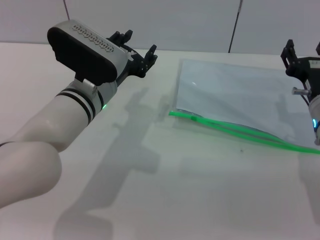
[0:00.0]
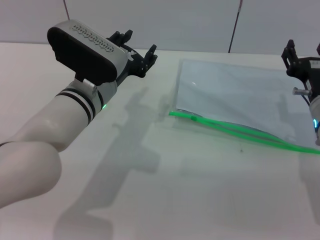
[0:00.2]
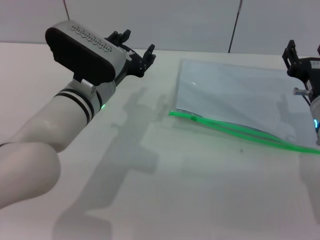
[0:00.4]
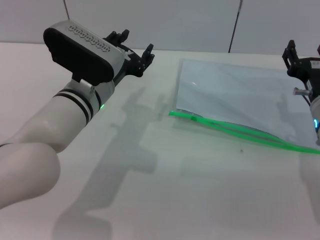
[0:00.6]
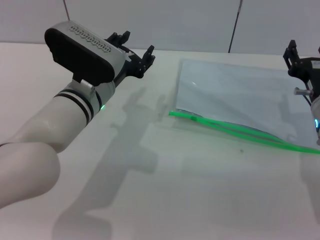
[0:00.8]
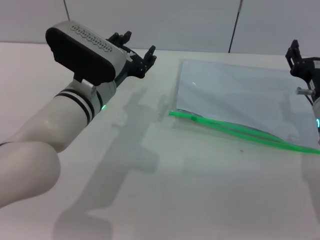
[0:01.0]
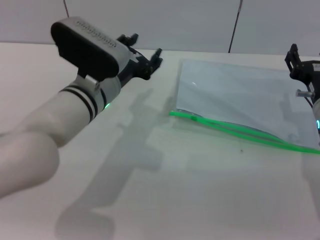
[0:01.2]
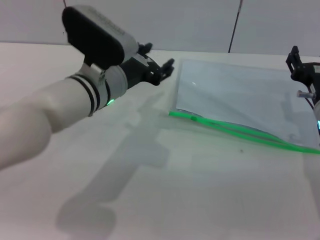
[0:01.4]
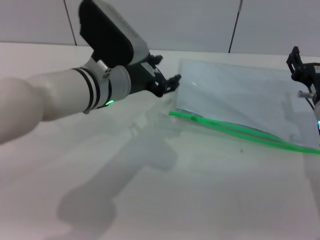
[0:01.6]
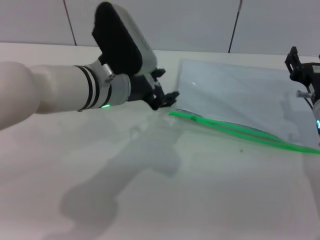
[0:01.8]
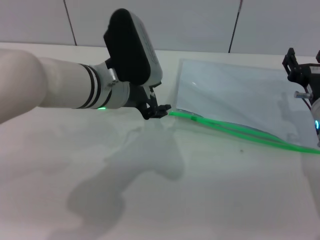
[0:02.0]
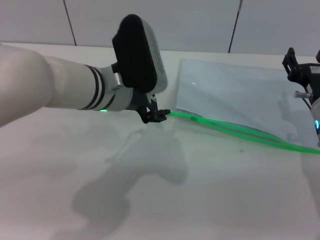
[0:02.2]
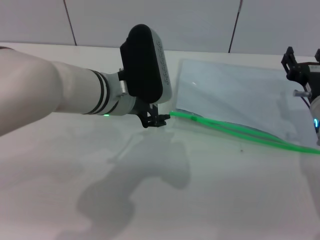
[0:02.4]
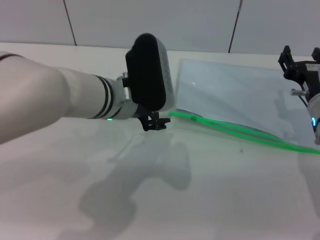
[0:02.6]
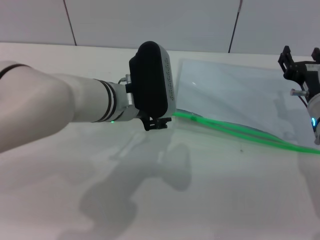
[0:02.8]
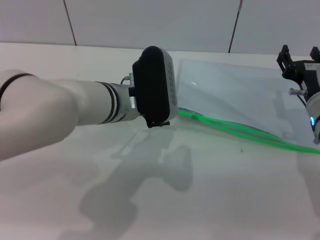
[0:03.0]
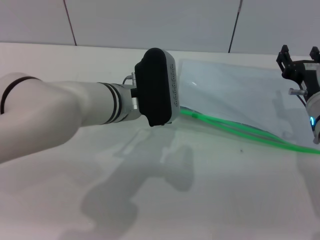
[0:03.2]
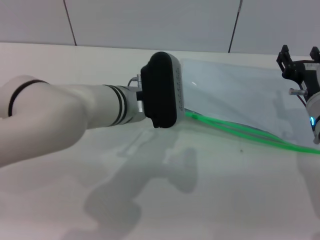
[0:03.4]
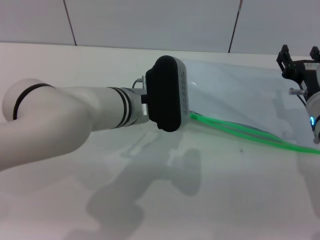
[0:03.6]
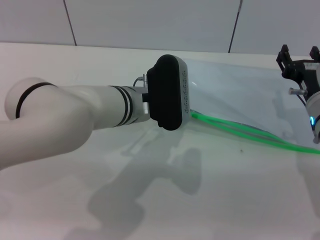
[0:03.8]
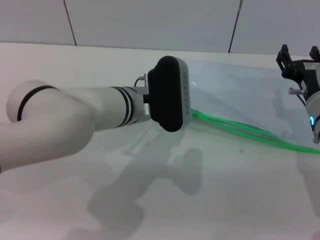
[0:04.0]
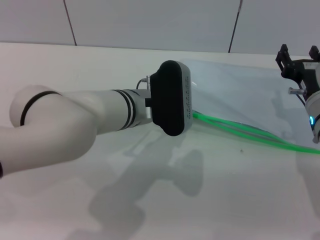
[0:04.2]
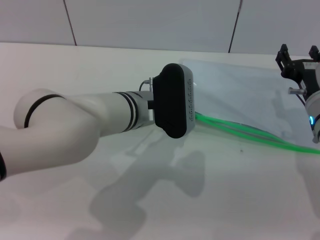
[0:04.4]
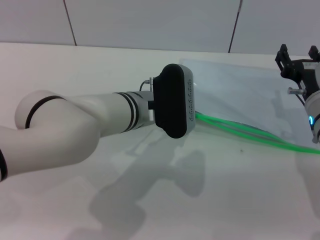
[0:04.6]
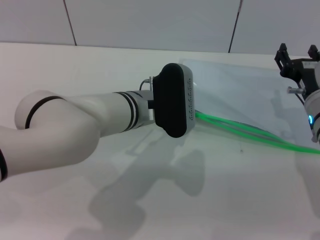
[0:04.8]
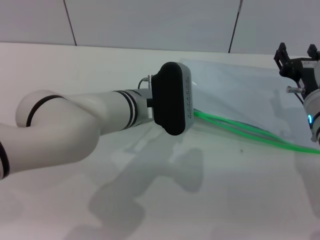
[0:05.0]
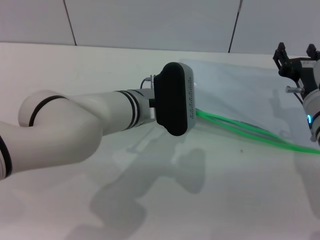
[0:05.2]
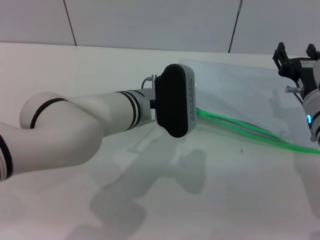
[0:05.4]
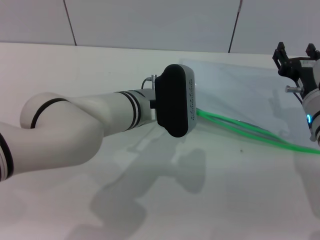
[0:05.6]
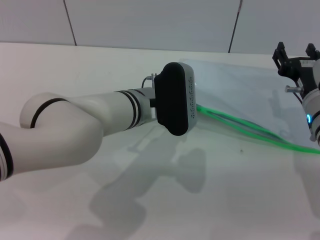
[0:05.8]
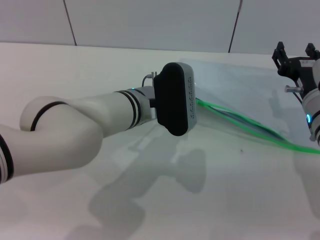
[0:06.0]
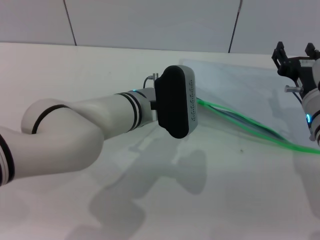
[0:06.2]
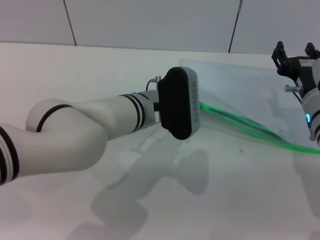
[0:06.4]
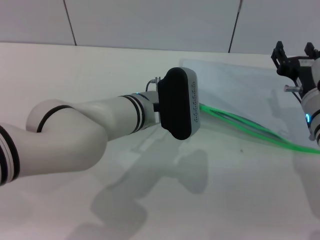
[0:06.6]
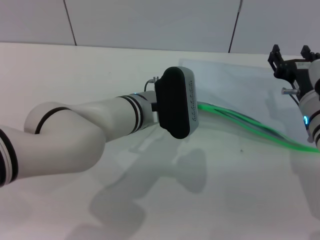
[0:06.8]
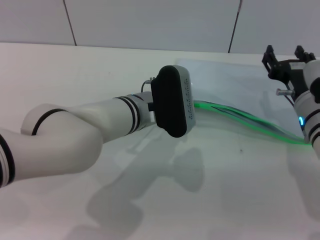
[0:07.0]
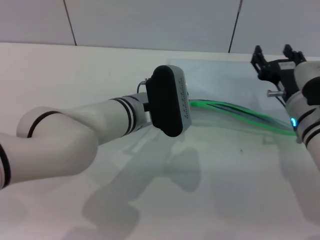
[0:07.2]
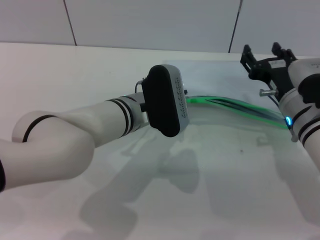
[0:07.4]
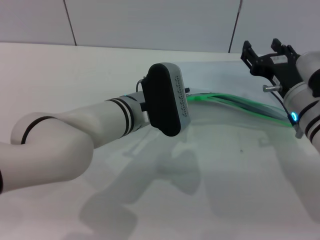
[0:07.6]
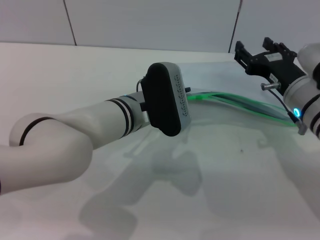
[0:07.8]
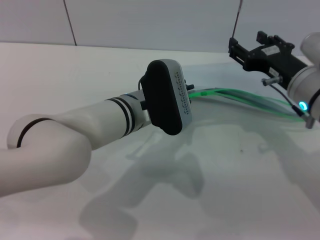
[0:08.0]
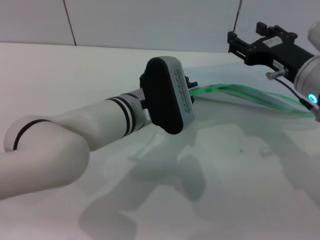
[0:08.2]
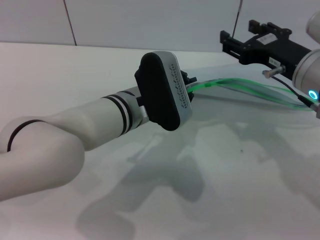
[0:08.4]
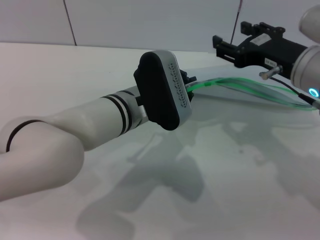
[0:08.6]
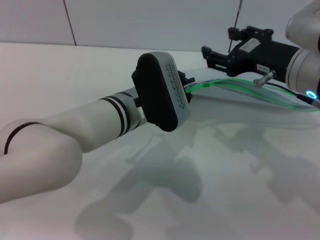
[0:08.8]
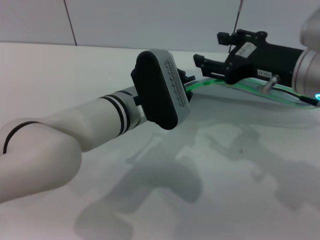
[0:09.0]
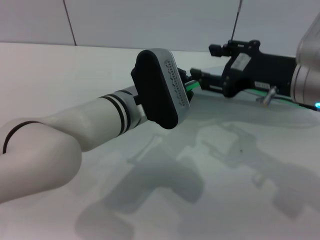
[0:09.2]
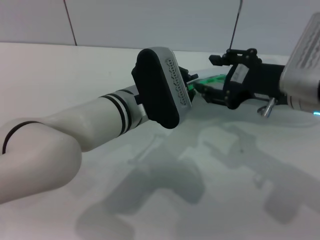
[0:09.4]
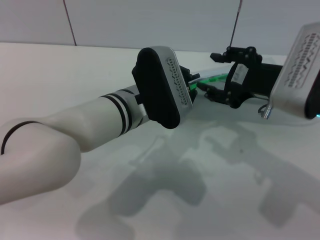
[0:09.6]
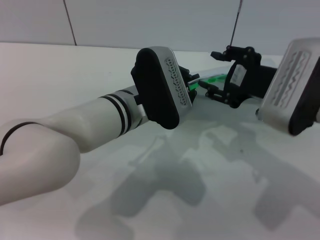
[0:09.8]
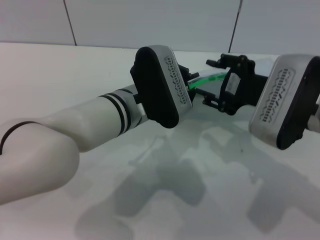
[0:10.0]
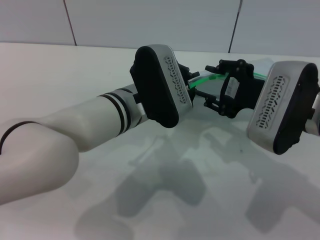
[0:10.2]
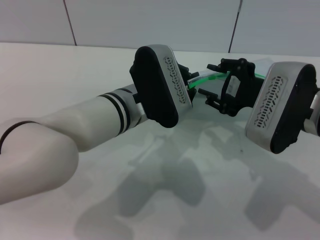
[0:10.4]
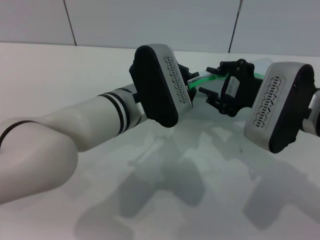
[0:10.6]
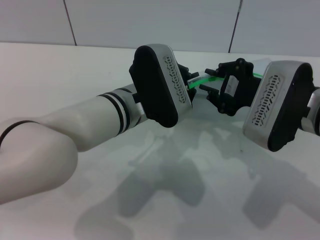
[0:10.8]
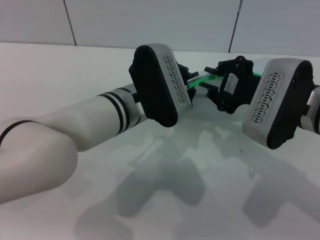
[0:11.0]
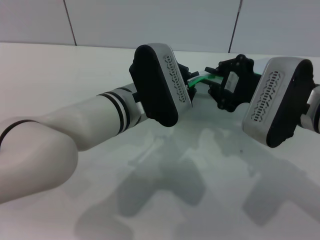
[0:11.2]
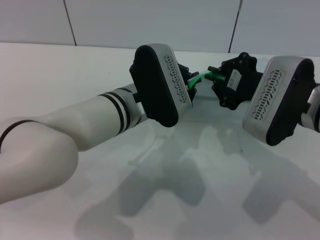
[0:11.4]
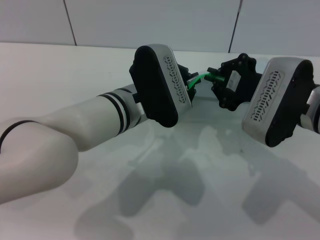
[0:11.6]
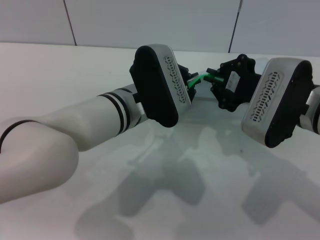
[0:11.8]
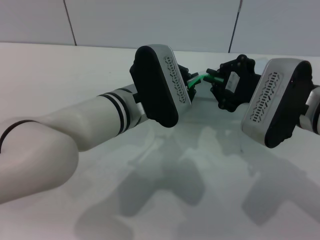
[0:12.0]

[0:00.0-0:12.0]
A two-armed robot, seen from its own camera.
Step, 0:00.0 to 0:07.4: Pick up the transparent plastic bag with the left gripper.
0:03.0 to 0:06.0: The grippers make only small movements.
0:06.0 to 0:07.6: The left gripper closes.
0:07.6 to 0:09.0: The right gripper is displaced upward by some 10 cm.
0:09.0 to 0:10.4: The right gripper goes about 5 cm downward.
0:10.4 to 0:12.0: The right gripper closes its fingers.

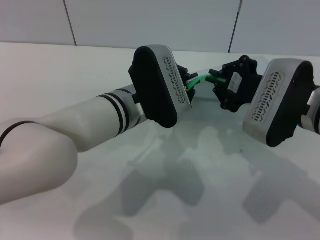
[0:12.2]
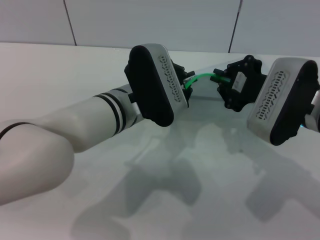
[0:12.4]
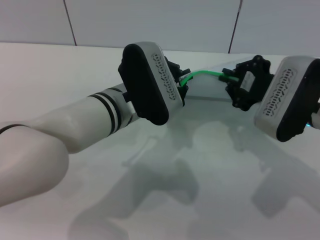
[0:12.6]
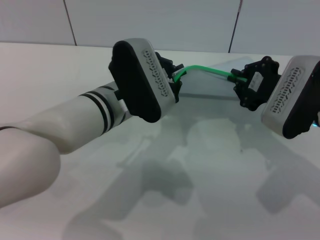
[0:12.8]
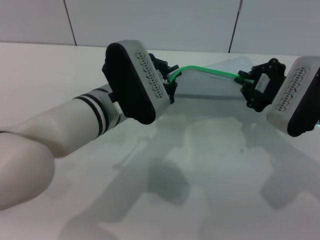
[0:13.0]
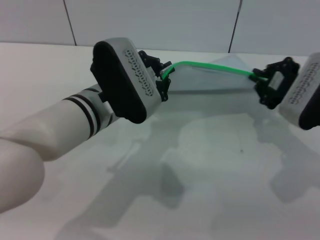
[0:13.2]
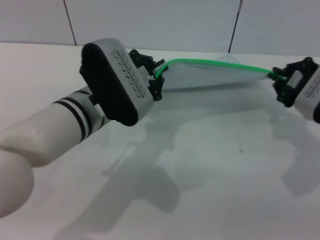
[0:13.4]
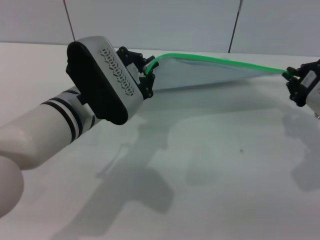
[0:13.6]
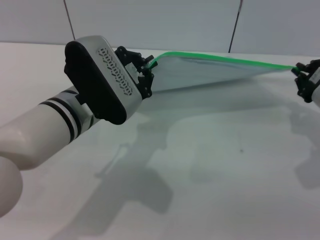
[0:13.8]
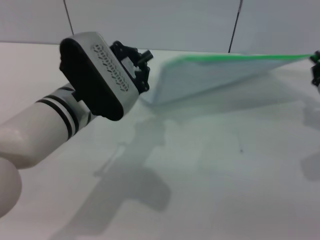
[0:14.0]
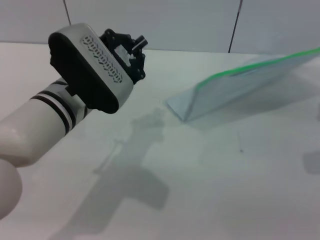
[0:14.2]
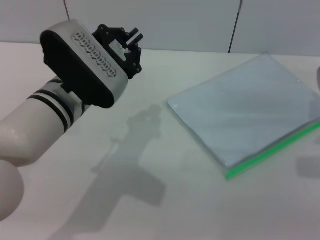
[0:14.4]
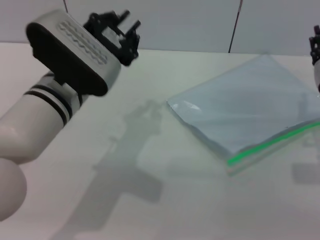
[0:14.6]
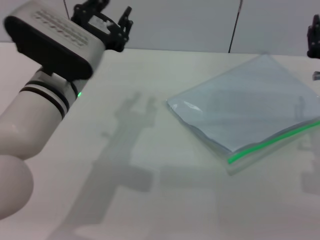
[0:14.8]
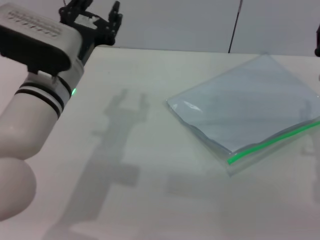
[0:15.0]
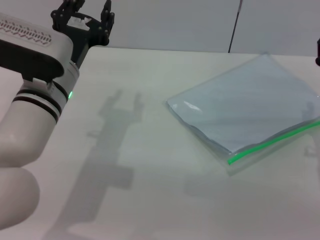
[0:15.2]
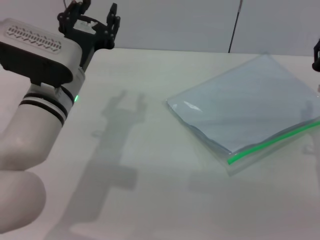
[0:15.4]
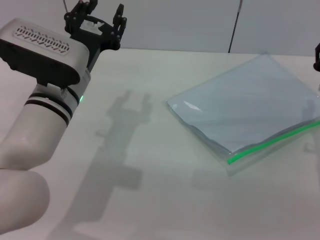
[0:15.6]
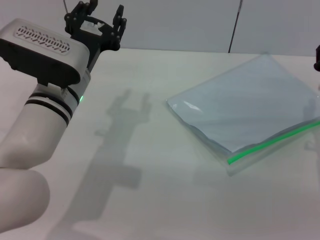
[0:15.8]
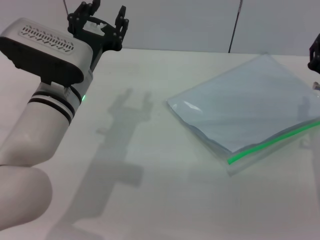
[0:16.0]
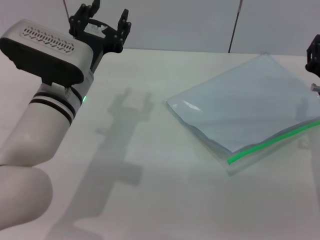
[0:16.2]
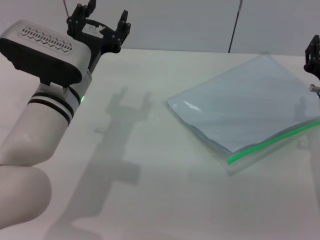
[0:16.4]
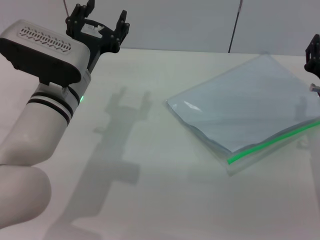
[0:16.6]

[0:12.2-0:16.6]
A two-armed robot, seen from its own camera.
Step, 0:12.2 to 0:14.4: Pulling up the zipper on the transparent plastic bag with the right gripper to close it.
Step, 0:14.6 to 0:15.2: Place the transparent plastic bag.
0:12.2 to 0:13.6: The right gripper goes about 10 cm to the right; the left gripper heads to the left, covering approximately 5 cm.
0:13.6 to 0:15.2: The right gripper moves roughly 5 cm, and opens its fingers. Meanwhile the left gripper opens its fingers.
0:15.2 to 0:16.6: The grippers move only a little.

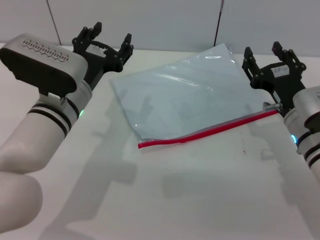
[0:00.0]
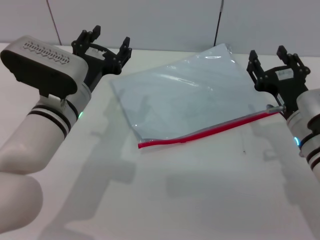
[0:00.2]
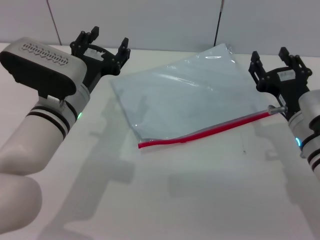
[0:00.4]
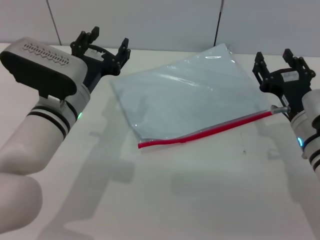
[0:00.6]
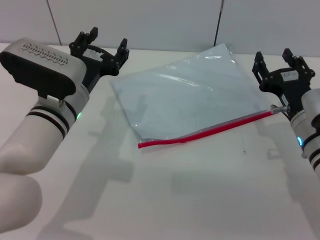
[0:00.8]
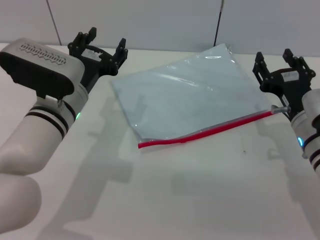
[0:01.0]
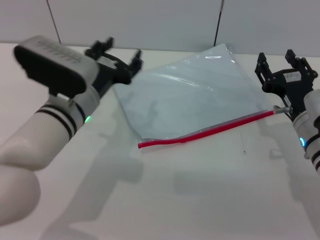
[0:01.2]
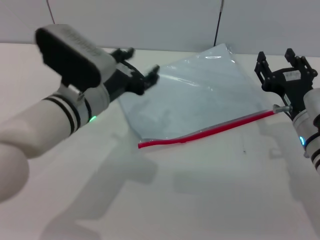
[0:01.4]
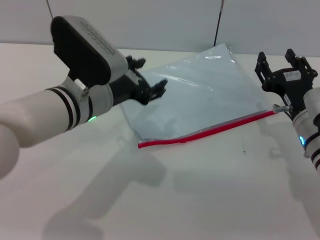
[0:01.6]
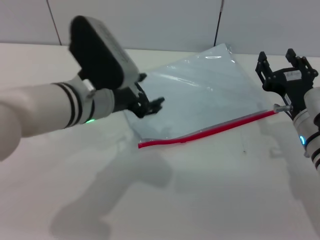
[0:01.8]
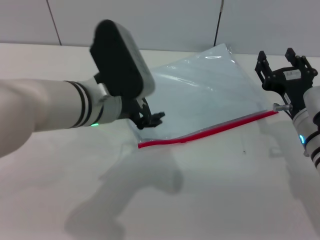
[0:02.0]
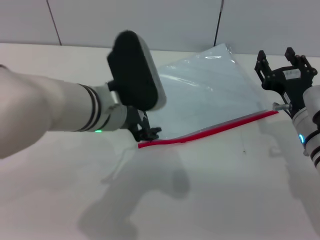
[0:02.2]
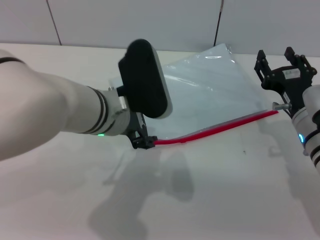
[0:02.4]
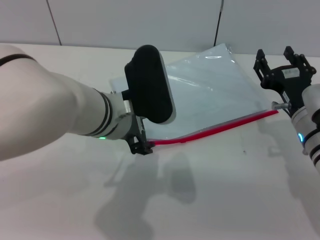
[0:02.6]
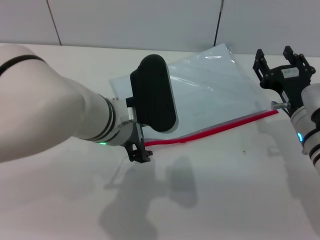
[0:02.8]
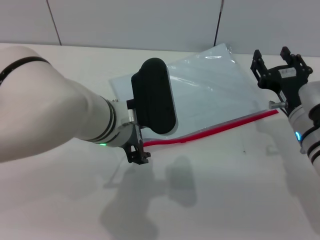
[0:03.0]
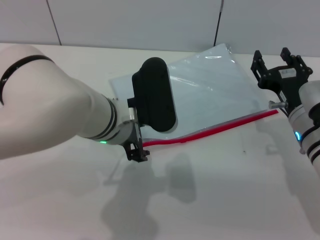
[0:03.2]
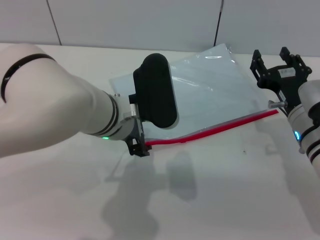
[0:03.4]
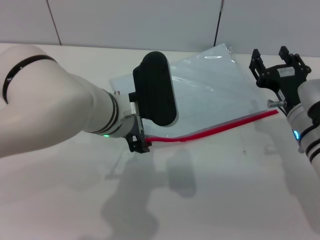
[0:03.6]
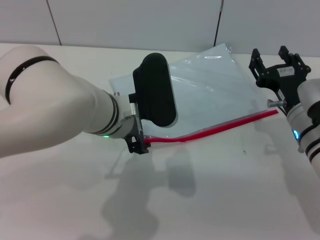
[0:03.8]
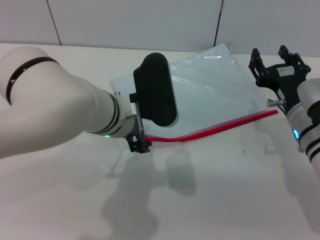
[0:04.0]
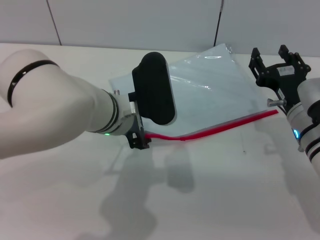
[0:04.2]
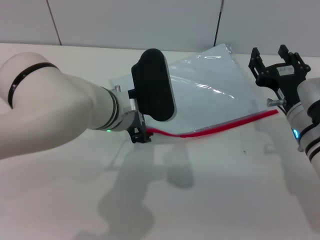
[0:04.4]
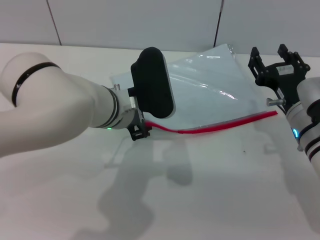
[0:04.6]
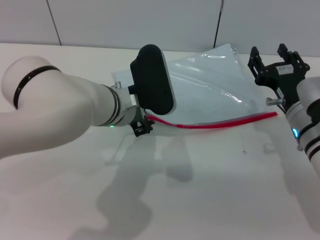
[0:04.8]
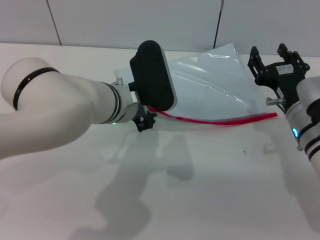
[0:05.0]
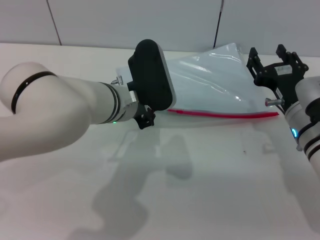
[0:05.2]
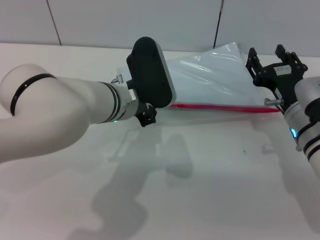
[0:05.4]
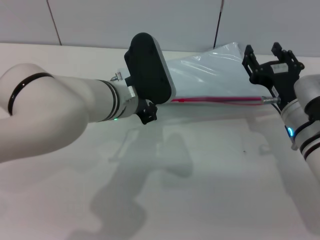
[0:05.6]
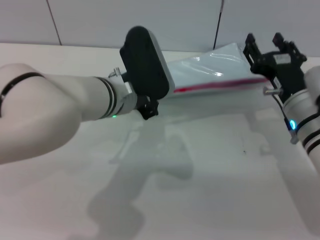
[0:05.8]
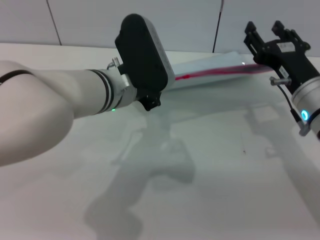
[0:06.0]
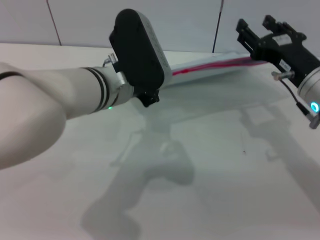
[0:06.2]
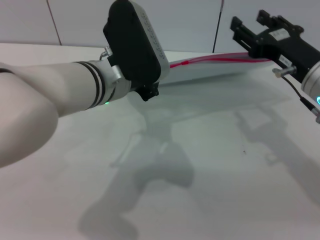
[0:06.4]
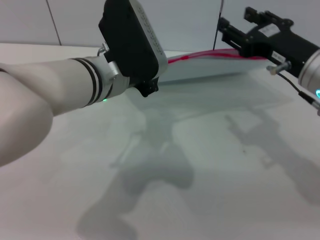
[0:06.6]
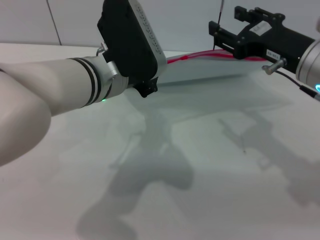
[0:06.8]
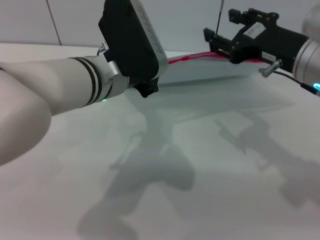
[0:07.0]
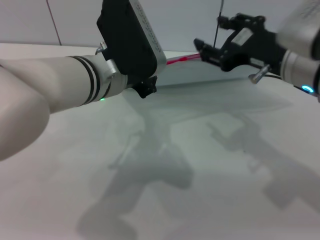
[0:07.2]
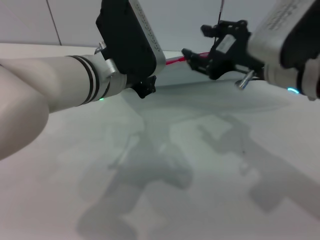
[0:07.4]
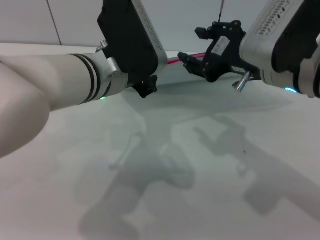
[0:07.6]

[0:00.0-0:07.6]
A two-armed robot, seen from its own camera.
Step, 0:00.0 to 0:06.2: Pick up the transparent plastic bag with the left gripper.
0:03.0 to 0:04.6: The grippers stay close to where they were, moving slightly.
0:04.6 to 0:06.0: The left gripper closes up.
0:06.0 to 0:07.6: The right gripper travels upward and to the left by roughly 10 cm.
